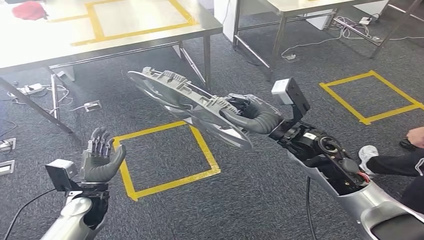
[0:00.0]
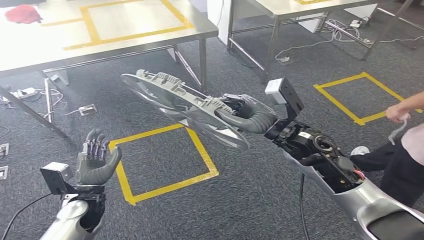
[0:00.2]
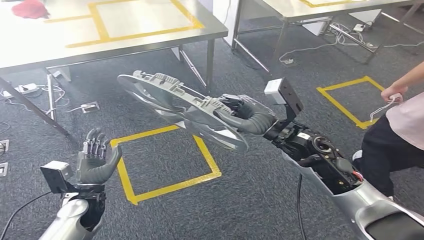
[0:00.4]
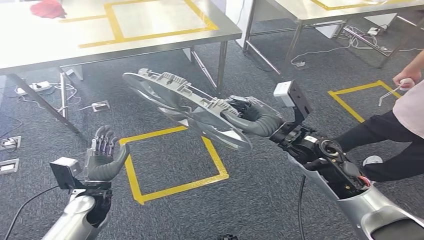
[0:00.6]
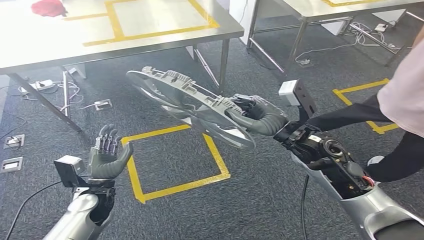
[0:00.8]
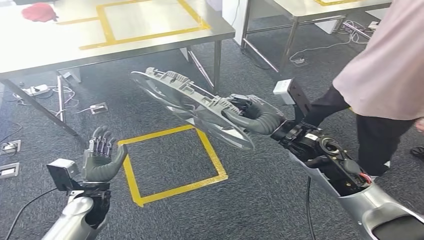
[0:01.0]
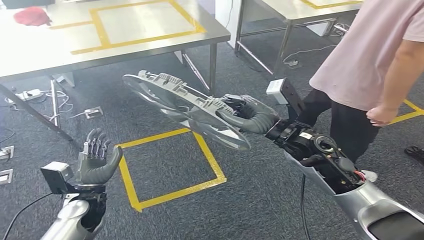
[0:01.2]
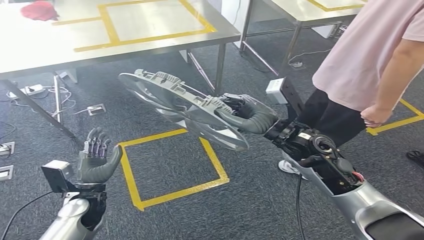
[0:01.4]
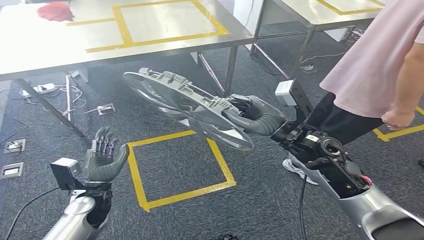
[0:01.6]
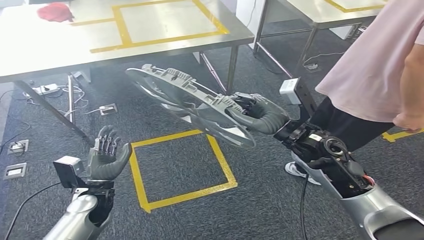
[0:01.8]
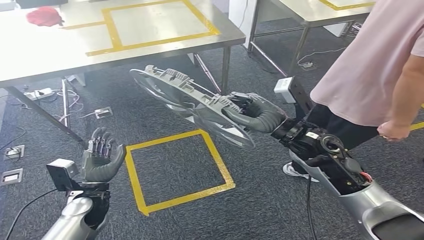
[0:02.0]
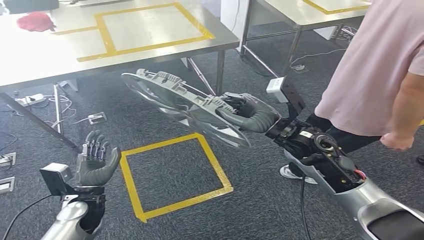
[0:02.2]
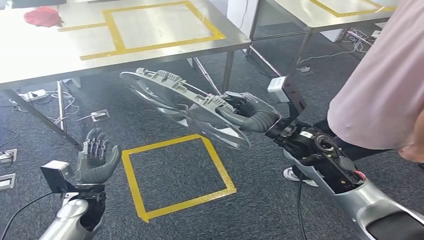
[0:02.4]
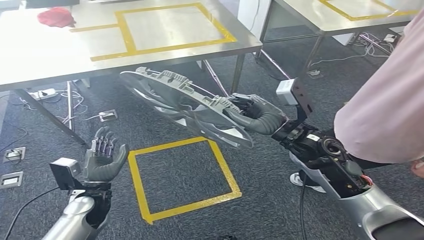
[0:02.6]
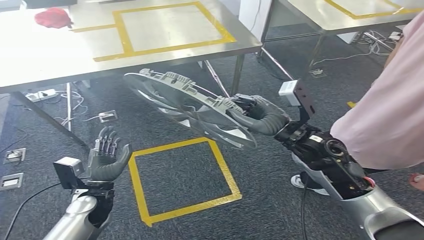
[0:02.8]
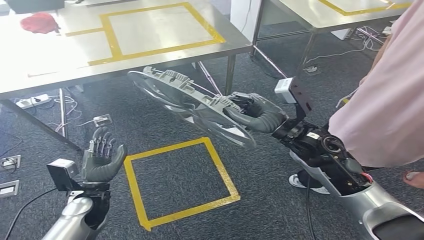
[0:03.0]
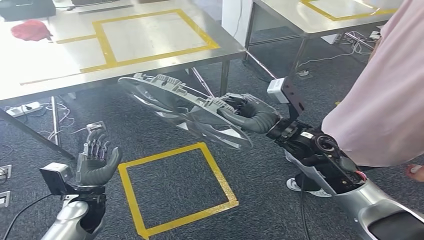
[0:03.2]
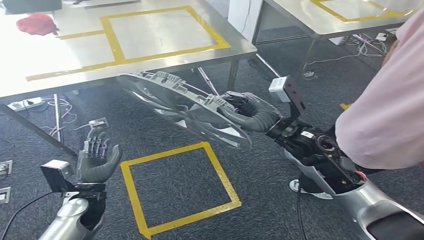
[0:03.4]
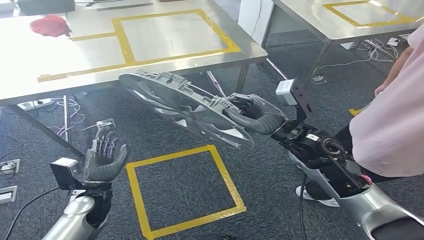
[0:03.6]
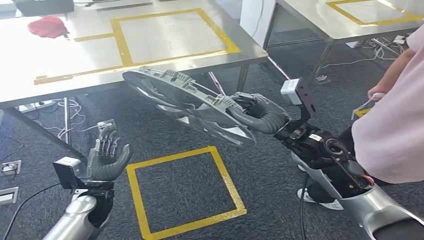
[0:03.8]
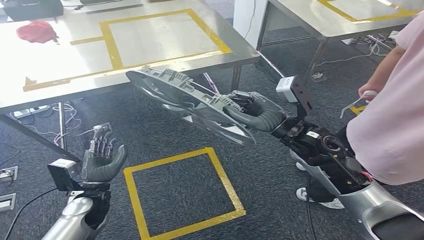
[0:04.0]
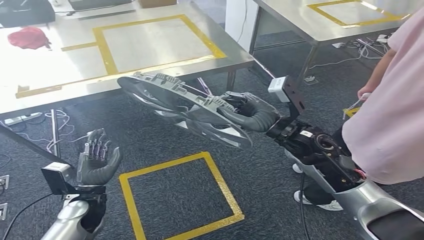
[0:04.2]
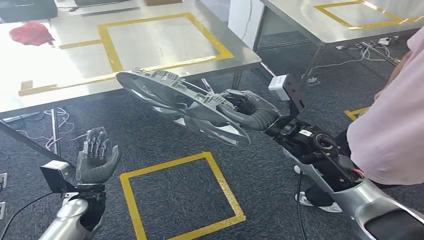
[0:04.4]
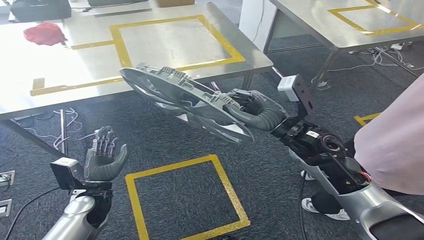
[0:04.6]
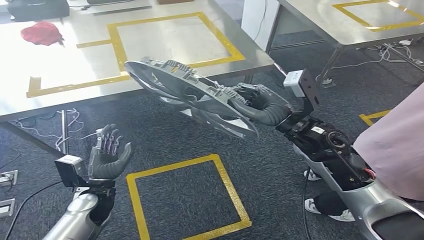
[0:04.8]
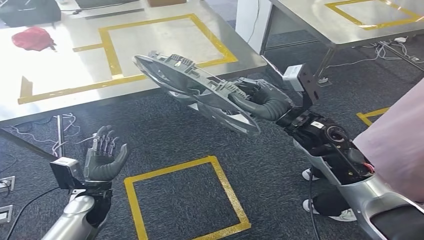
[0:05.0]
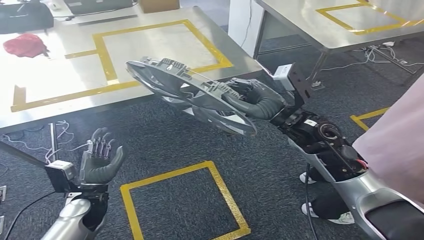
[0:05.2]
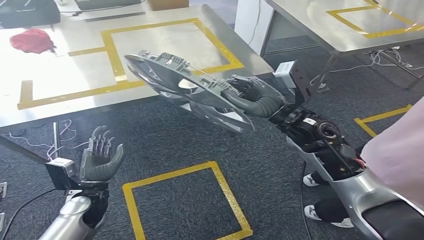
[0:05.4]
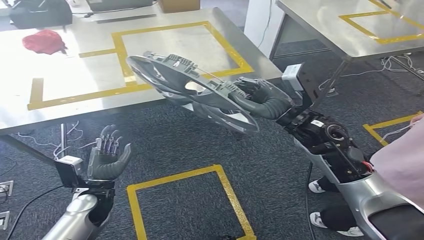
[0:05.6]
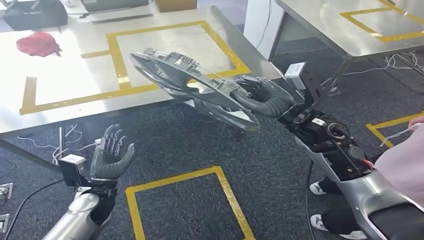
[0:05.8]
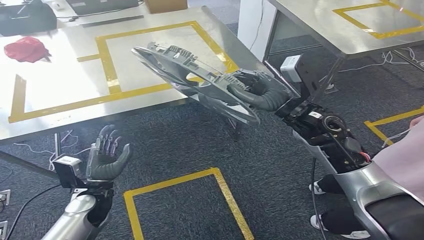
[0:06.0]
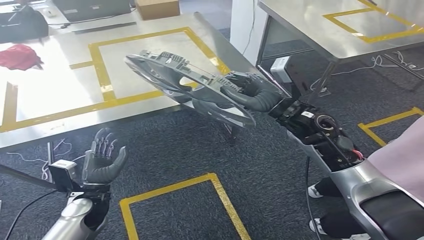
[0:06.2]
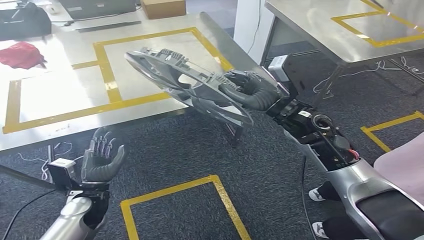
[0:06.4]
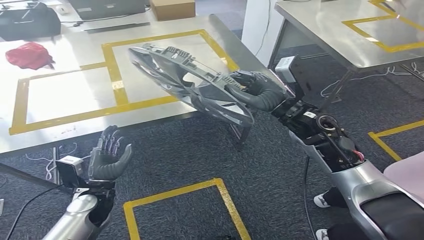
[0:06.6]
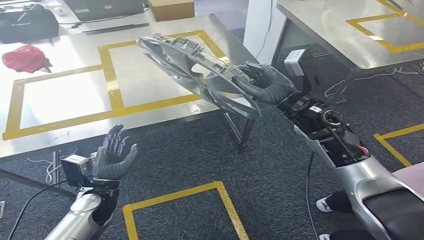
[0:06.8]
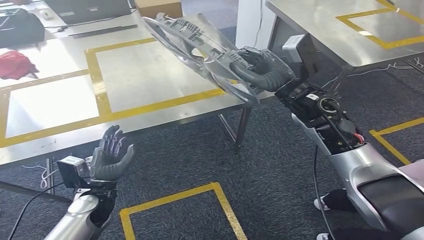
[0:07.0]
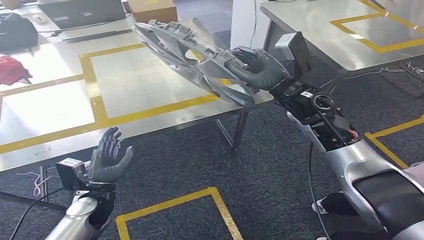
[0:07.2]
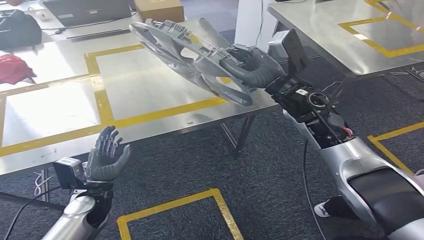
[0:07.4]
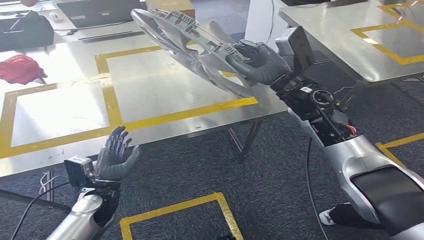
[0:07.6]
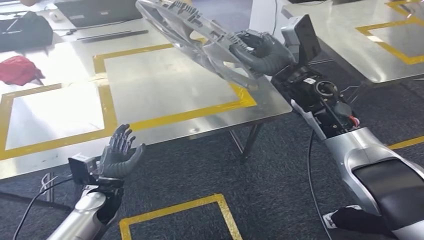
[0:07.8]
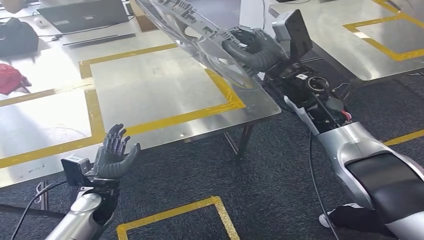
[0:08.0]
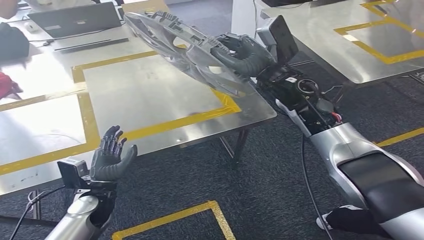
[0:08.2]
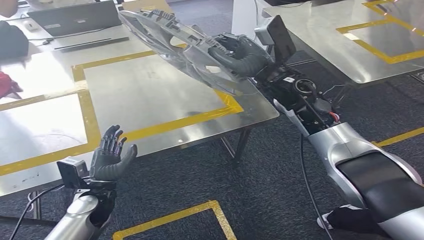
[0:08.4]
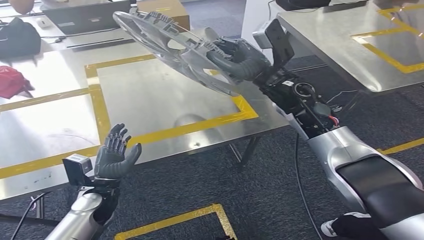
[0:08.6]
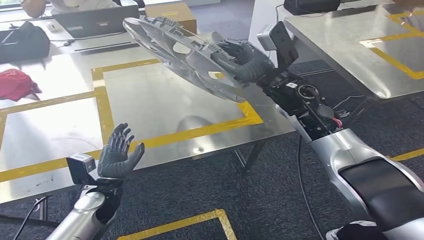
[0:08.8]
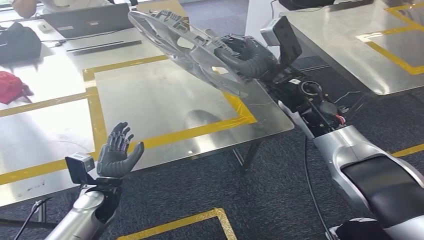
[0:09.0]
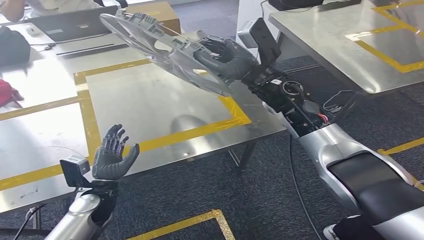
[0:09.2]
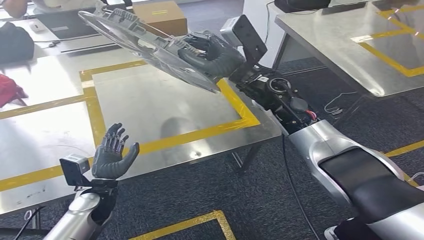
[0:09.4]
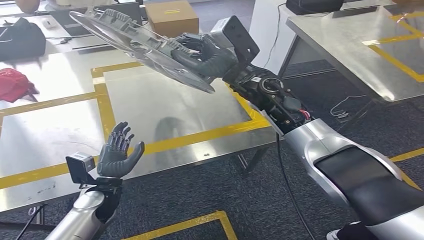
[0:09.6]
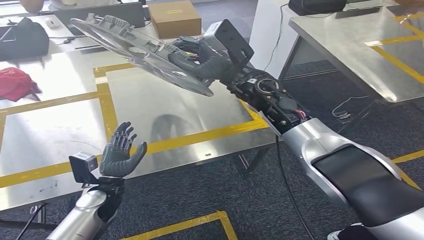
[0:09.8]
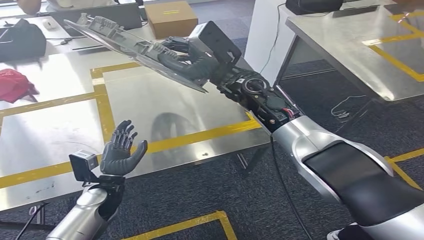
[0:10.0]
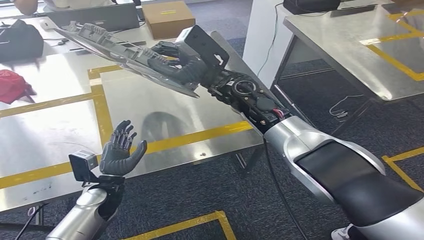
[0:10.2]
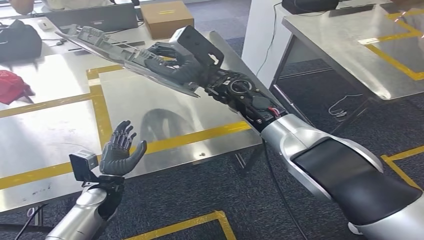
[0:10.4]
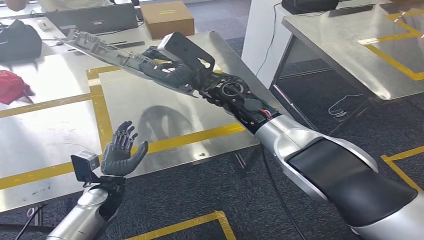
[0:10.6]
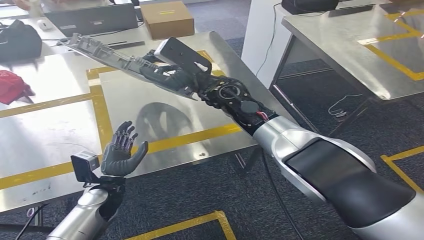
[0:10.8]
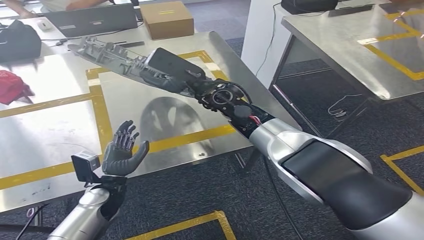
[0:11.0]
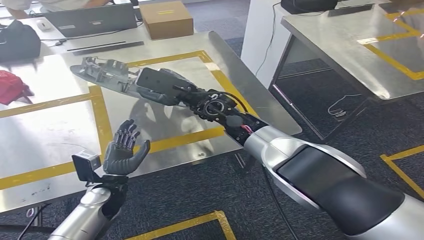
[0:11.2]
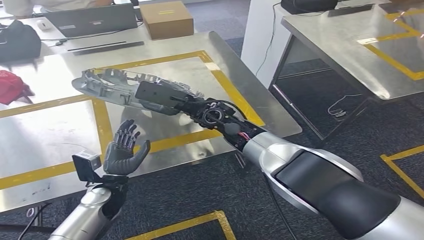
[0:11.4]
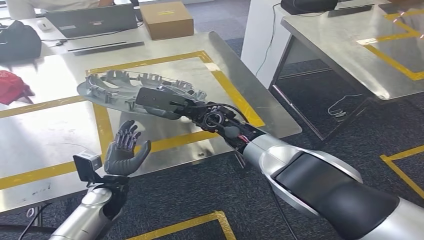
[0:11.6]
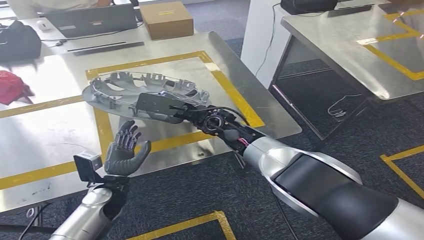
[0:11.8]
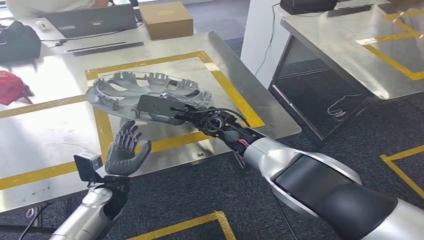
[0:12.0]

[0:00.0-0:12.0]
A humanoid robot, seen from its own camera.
Step, 0:00.0 to 0:08.8: Move the small parts to the workbench.

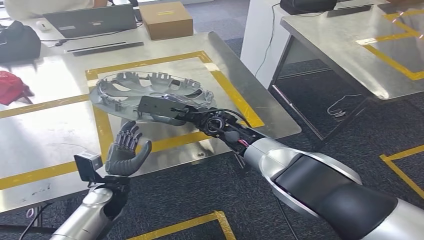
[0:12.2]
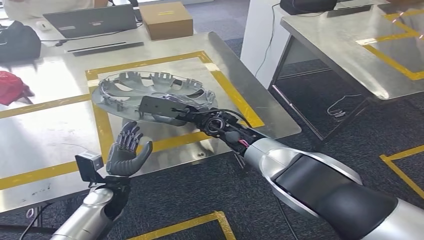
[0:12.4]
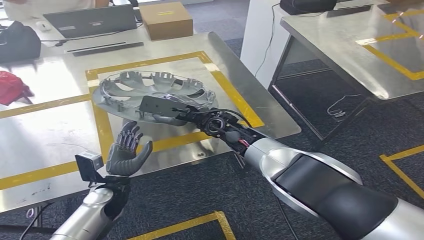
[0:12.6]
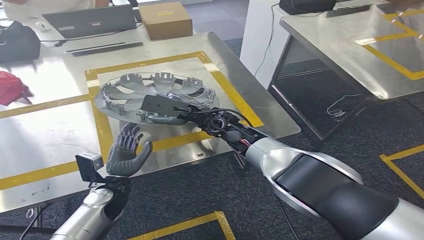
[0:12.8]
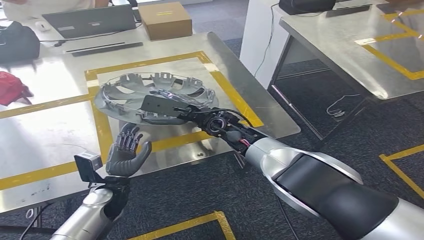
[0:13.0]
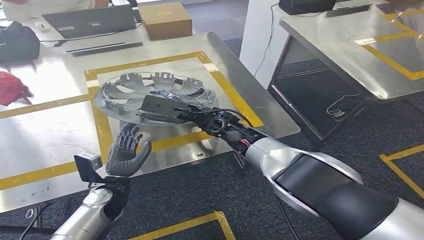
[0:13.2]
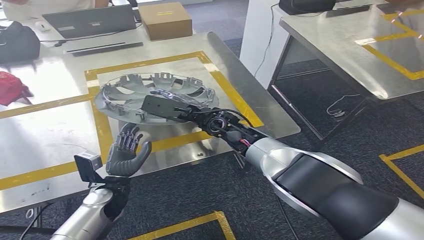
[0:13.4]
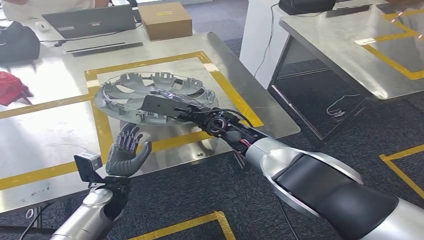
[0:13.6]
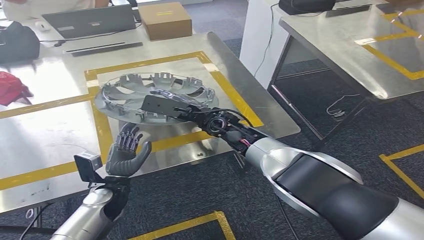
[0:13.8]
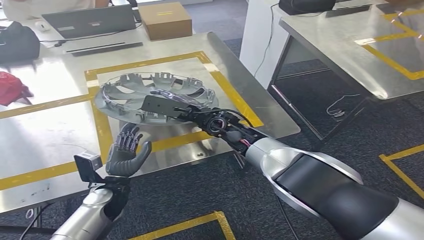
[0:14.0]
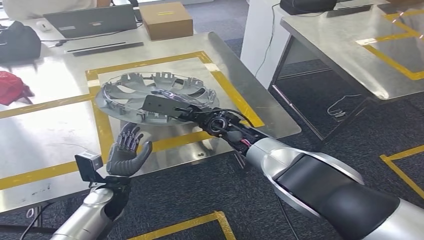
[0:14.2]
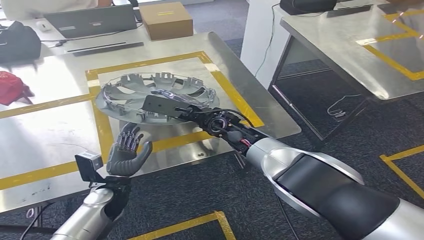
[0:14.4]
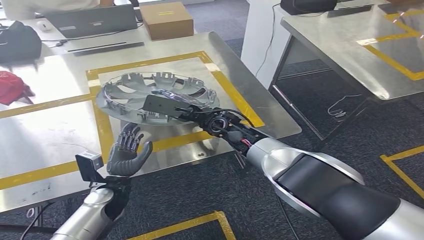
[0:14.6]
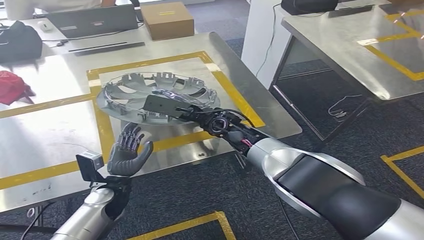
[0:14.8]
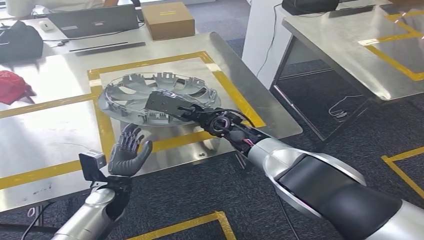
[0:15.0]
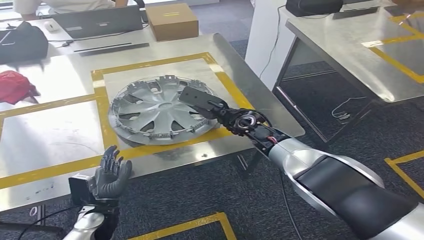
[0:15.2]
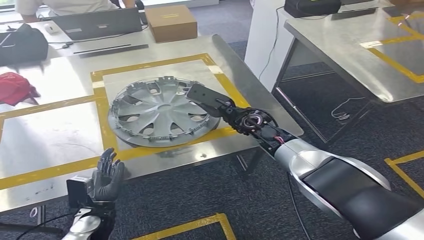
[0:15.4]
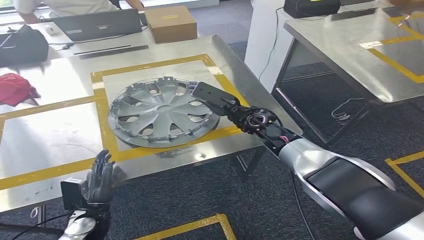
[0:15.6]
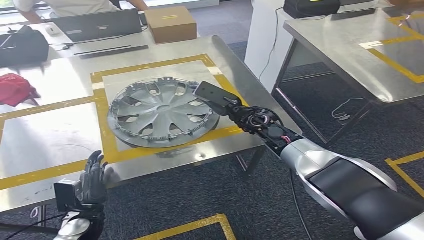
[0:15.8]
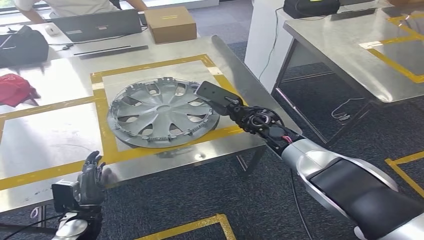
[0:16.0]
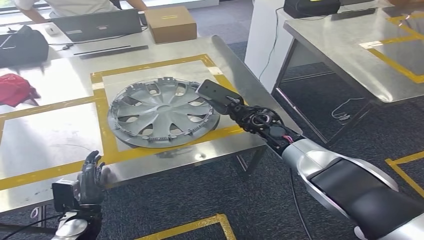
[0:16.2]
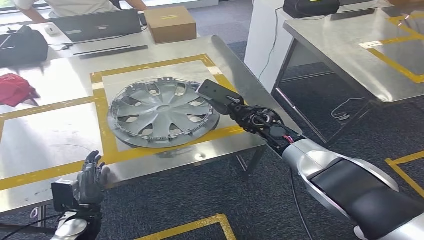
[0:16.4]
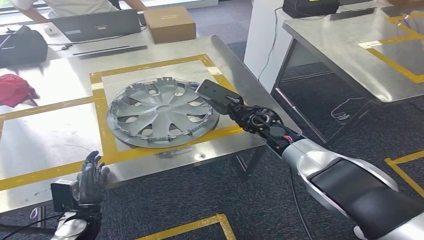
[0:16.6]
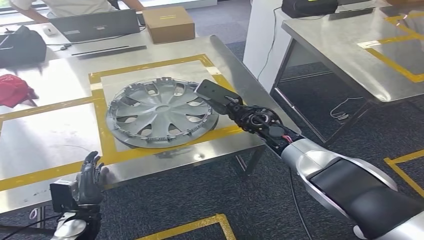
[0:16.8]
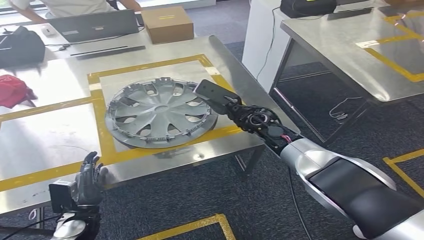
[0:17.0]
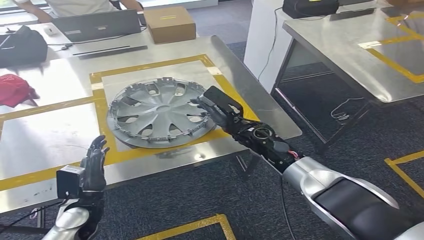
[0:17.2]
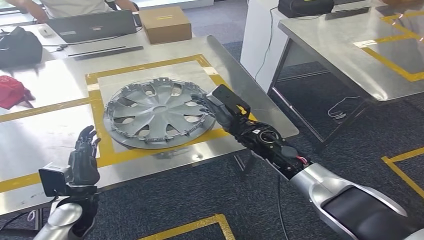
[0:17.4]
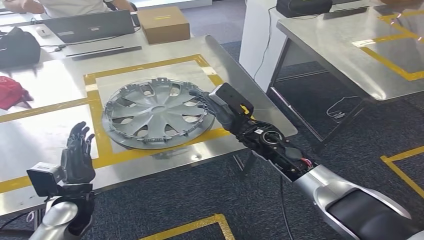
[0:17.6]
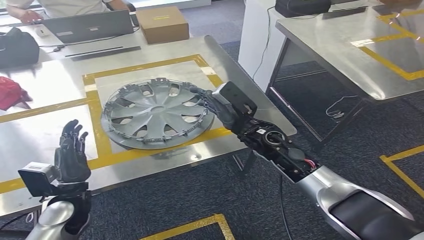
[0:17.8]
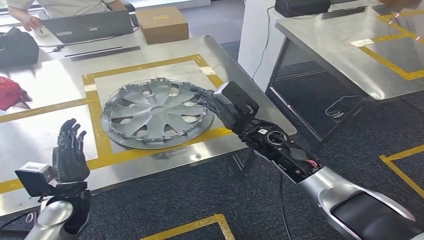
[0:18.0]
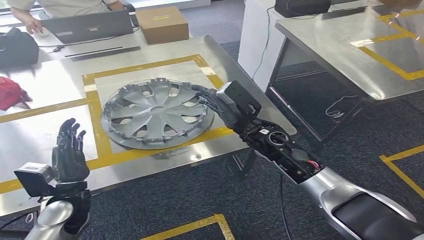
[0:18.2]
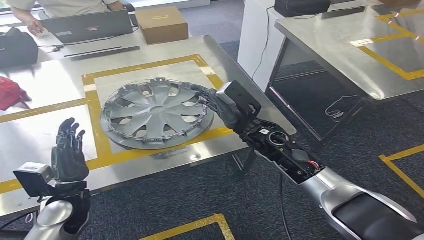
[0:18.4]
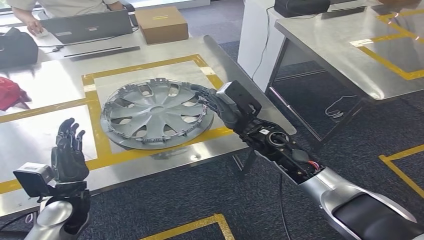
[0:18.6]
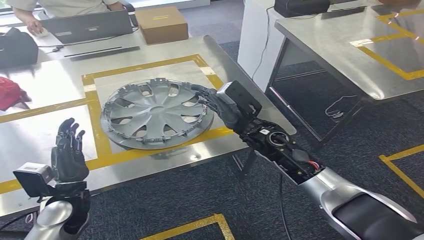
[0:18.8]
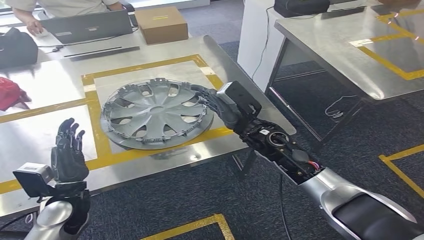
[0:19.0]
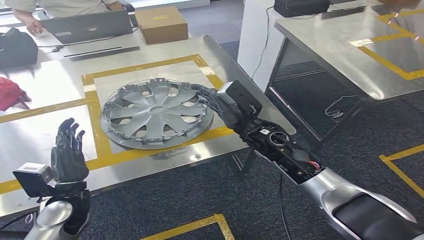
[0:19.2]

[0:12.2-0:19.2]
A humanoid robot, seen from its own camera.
Step, 0:12.2 to 0:16.4: Insert the small parts into the corresponding holes on the workbench.
0:12.2 to 0:15.0: Both hands stay put.
0:17.8 to 0:19.2: Neither hand changes place.
